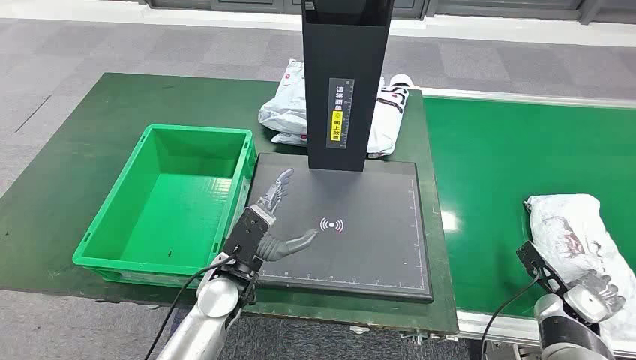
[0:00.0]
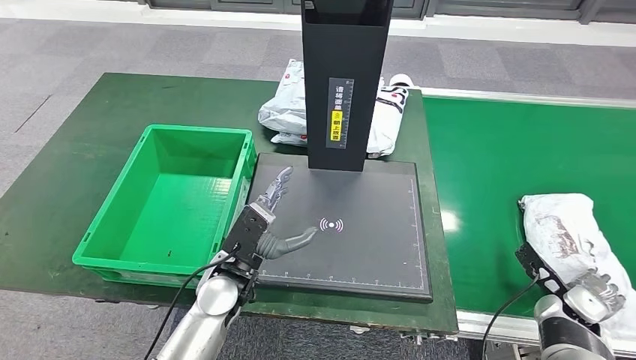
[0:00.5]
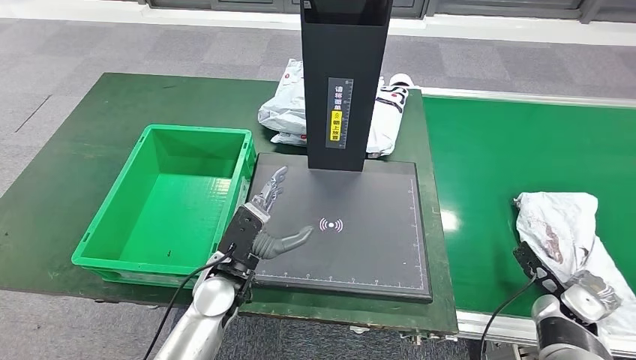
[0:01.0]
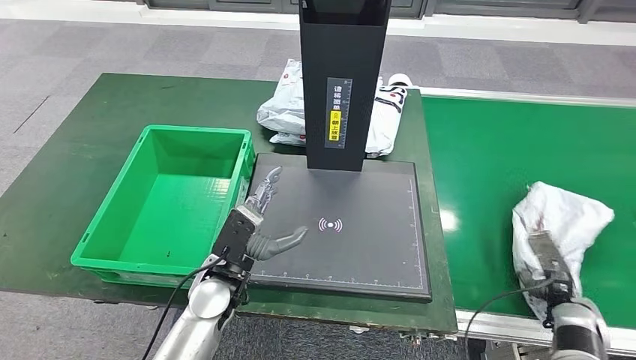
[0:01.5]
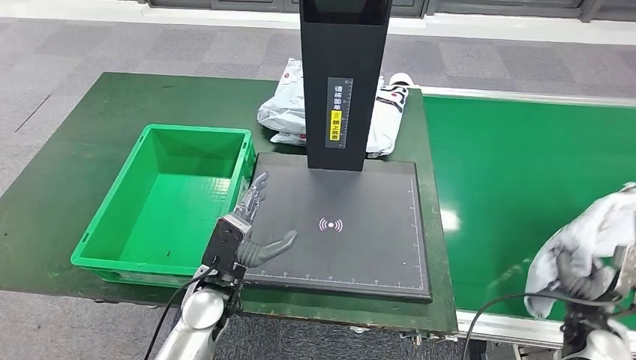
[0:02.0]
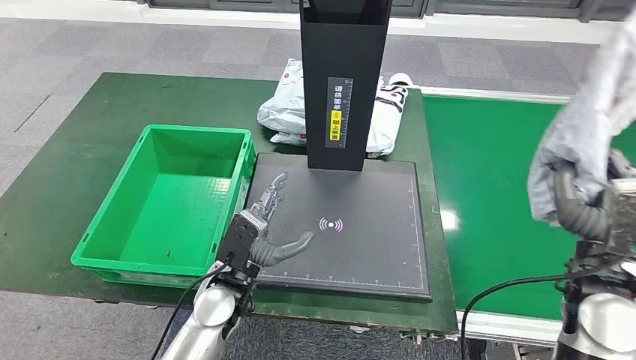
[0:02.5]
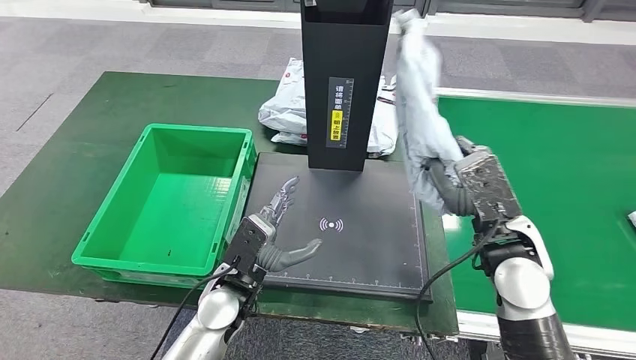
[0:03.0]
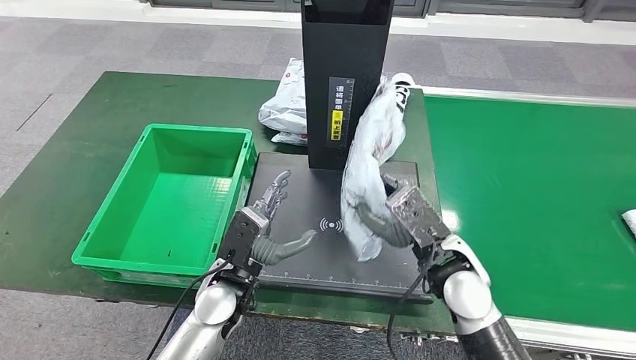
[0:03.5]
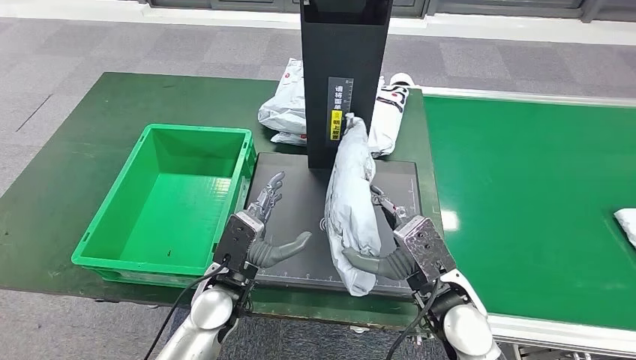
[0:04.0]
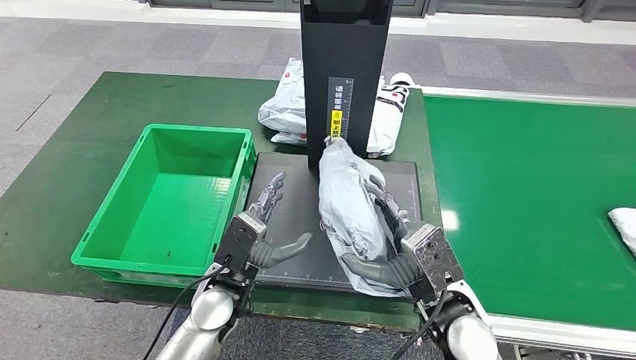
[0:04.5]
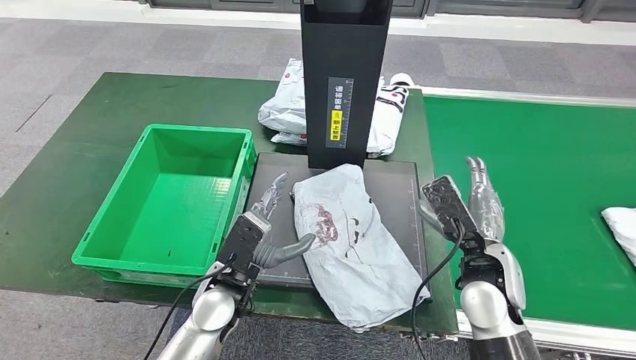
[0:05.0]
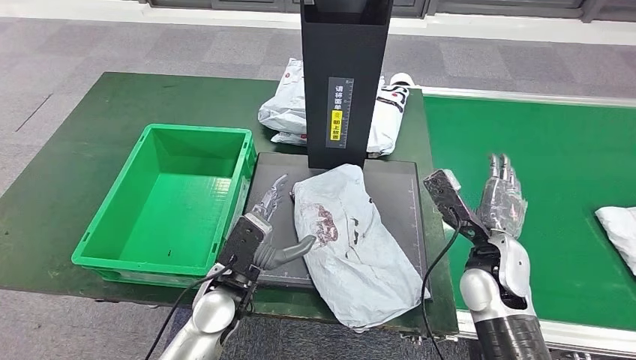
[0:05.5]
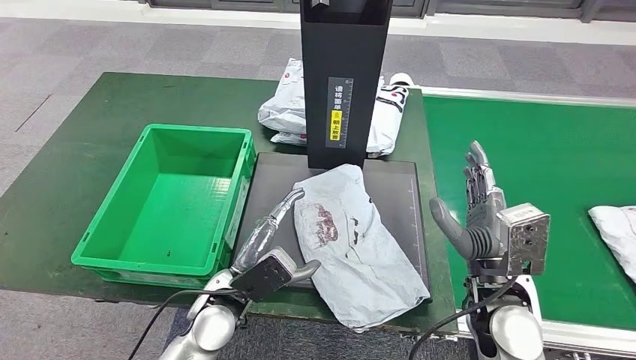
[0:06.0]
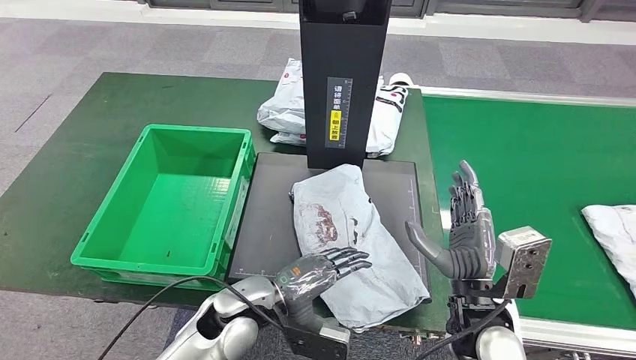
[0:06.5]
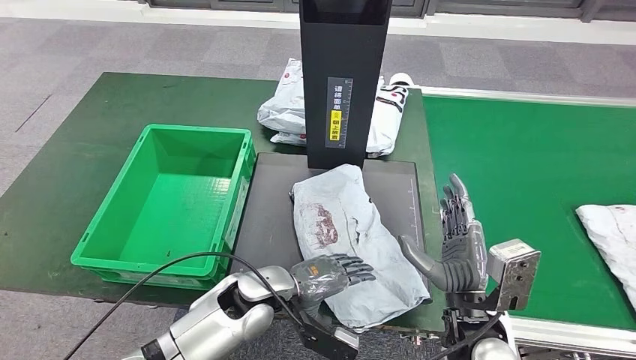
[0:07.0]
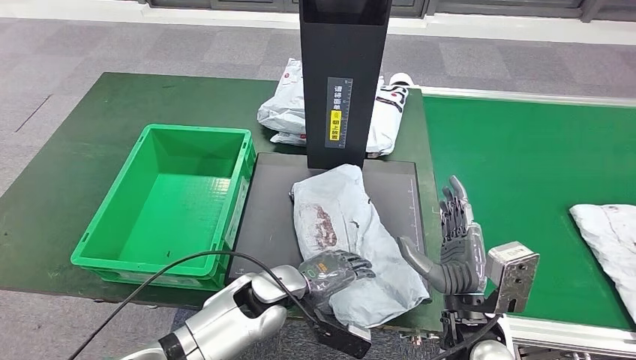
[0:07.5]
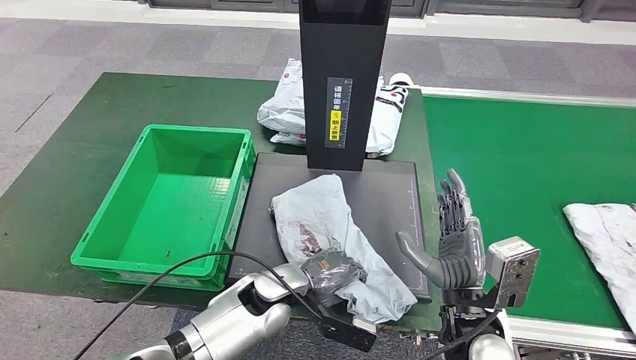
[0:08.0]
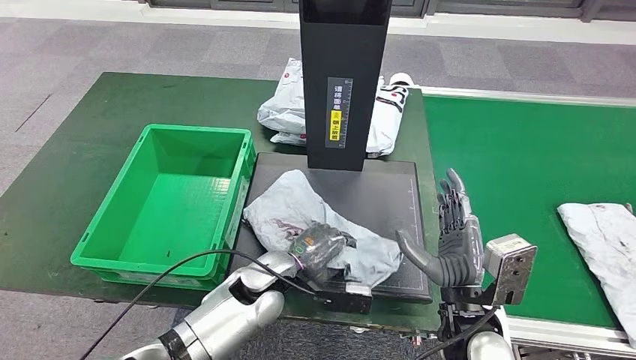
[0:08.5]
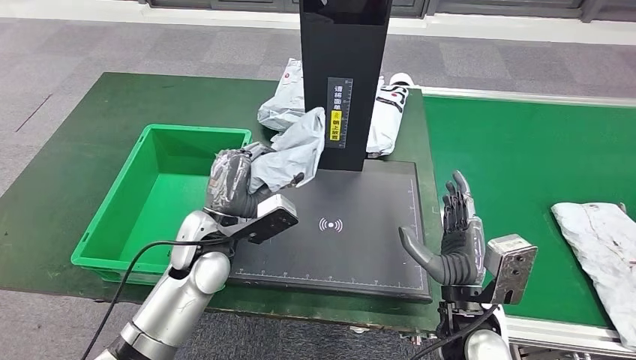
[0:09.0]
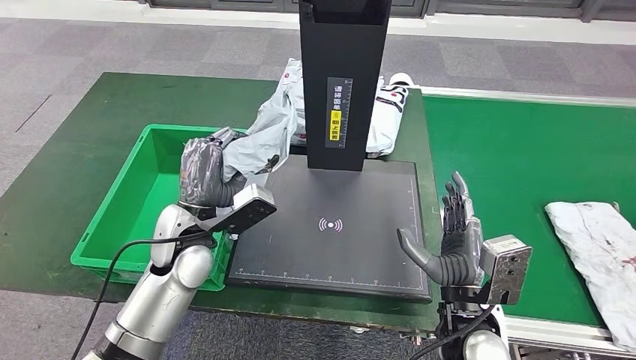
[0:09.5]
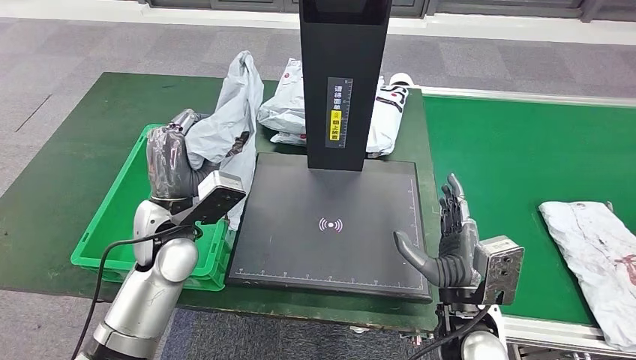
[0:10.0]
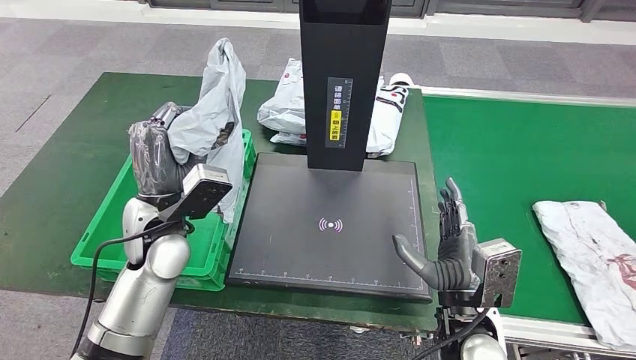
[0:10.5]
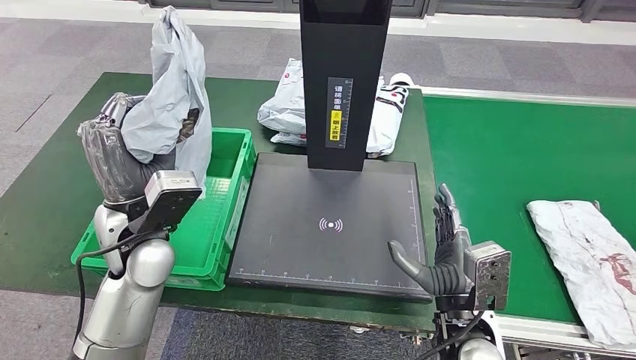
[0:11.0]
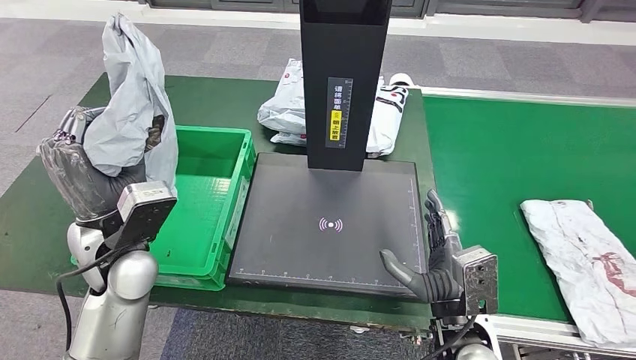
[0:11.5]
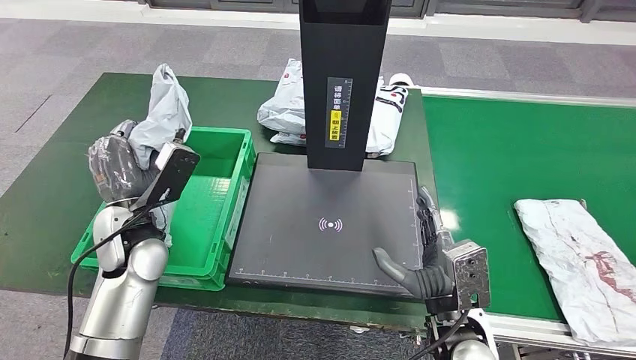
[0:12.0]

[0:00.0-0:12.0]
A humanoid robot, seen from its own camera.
Step, 0:00.0 to 0:02.0: Take the parcel off the conveyor belt.
Step, 0:03.0 to 0:05.0: Place the parcel onto the inbound machine.
Step, 0:05.5 to 0:09.0: Pick up the parcel from the inbound machine.
0:02.0 to 0:04.0: The right hand shifts roughly 25 cm to the left.
0:04.0 to 0:06.0: The right hand goes about 5 cm to the right.
0:06.0 to 0:08.0: The left hand goes some 5 cm to the right. The right hand ends up about 5 cm from where it was.

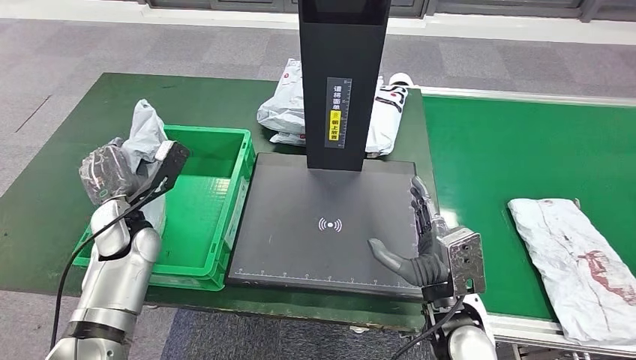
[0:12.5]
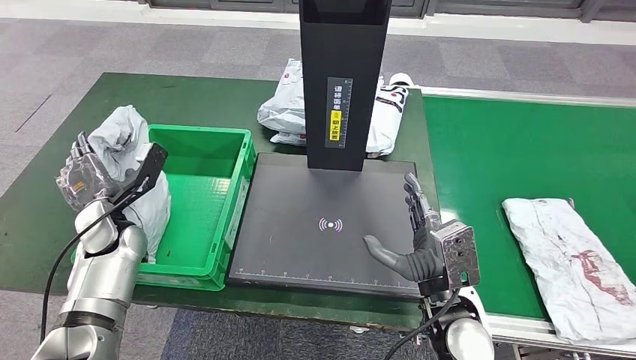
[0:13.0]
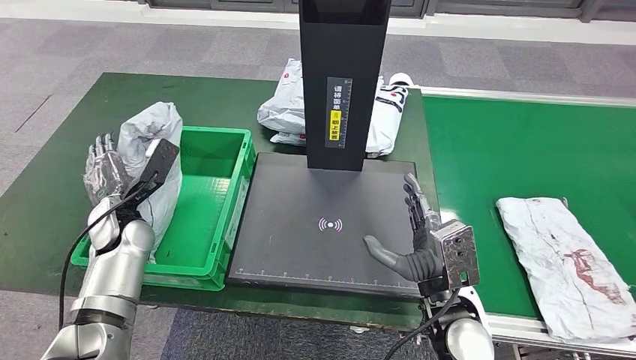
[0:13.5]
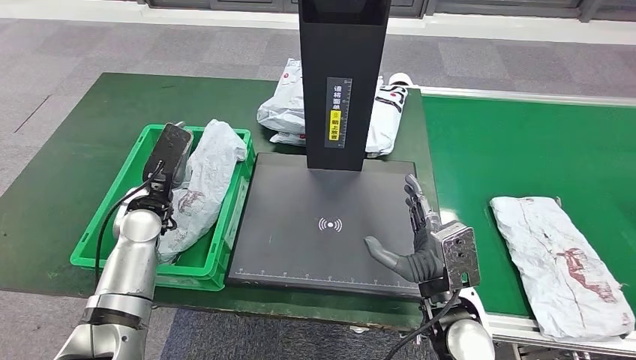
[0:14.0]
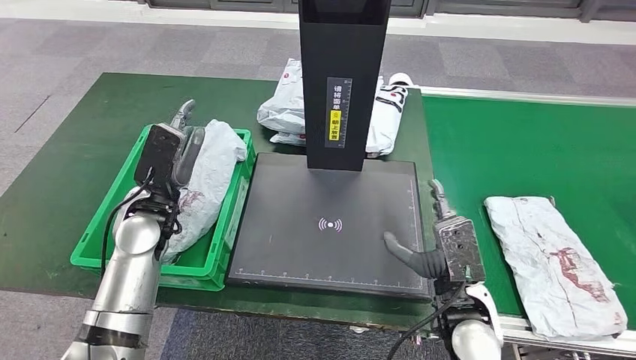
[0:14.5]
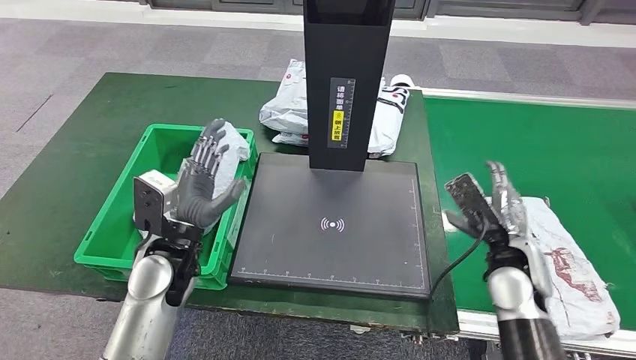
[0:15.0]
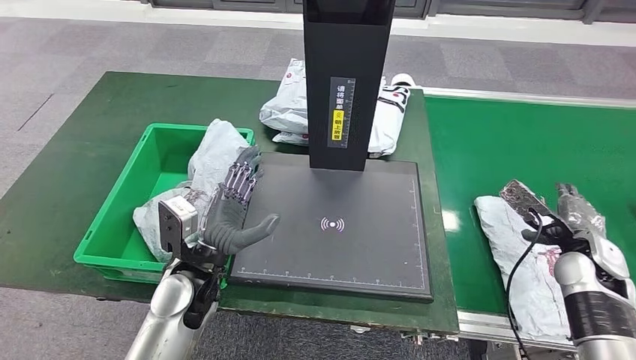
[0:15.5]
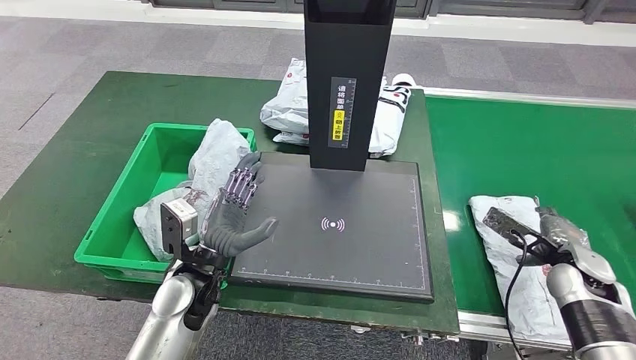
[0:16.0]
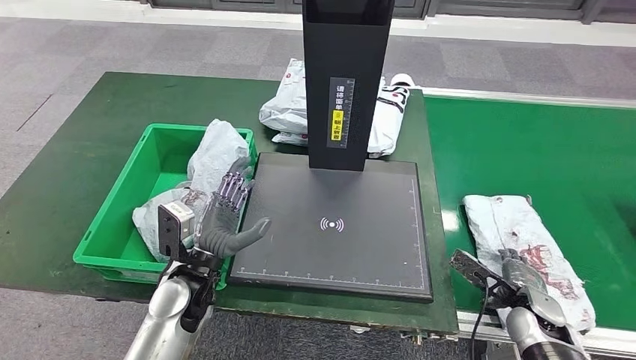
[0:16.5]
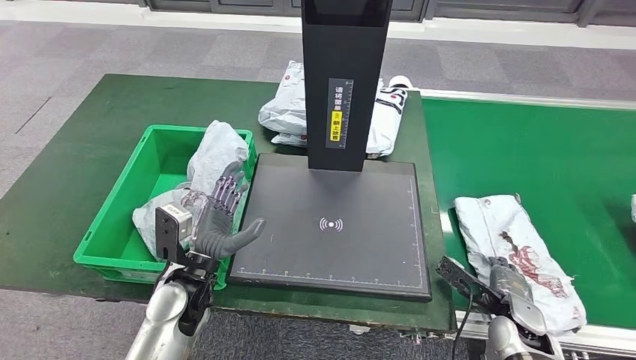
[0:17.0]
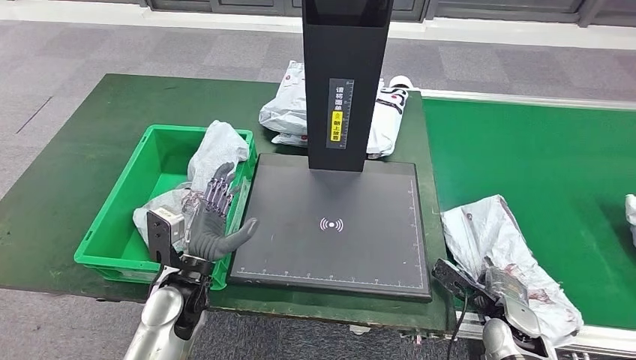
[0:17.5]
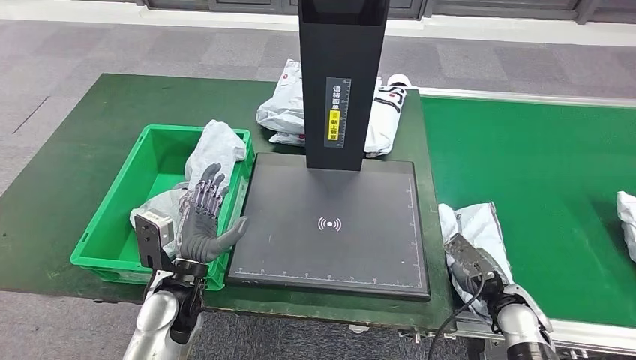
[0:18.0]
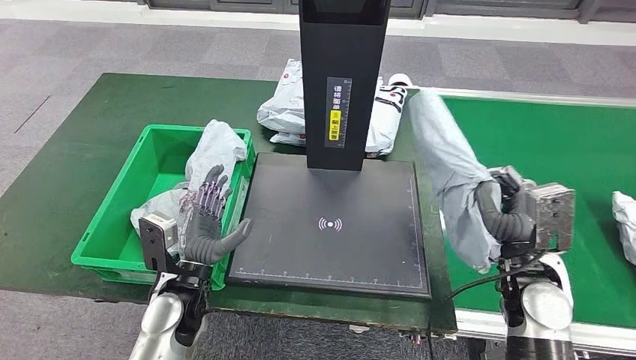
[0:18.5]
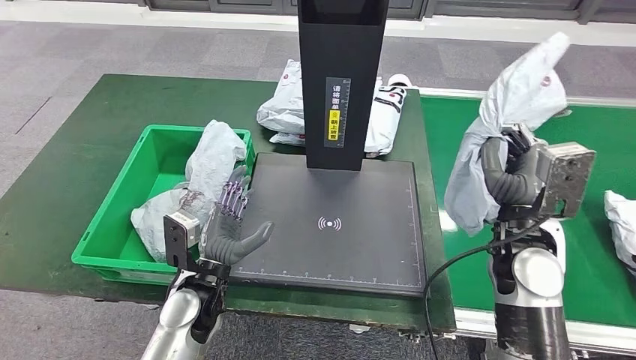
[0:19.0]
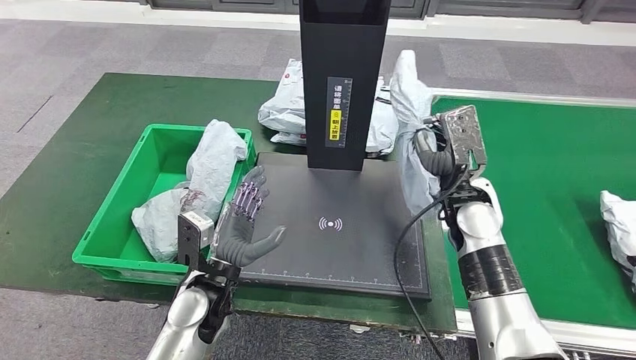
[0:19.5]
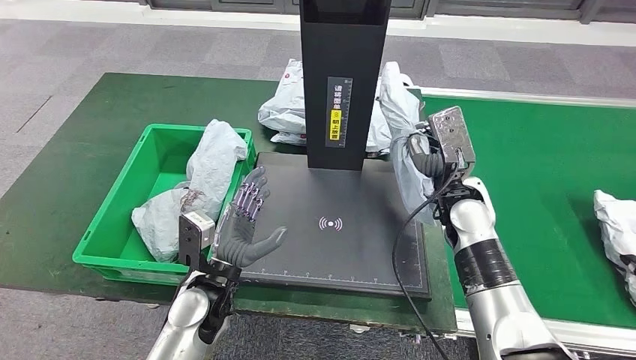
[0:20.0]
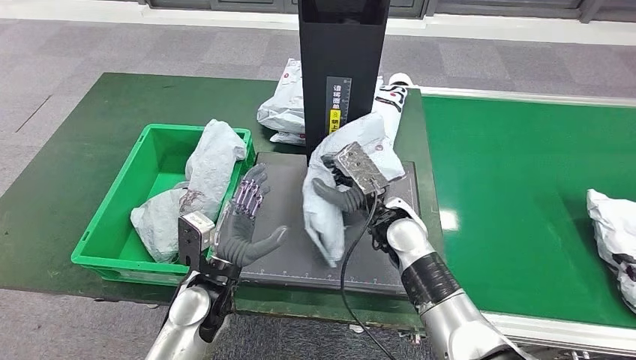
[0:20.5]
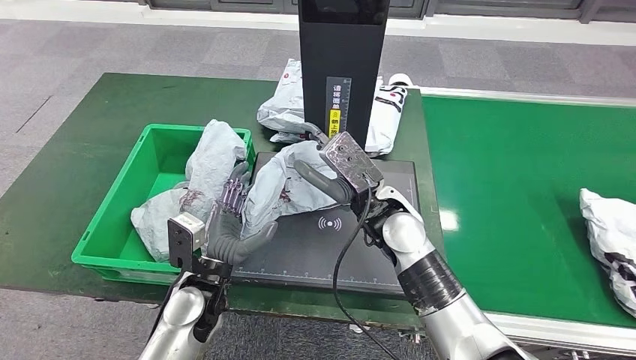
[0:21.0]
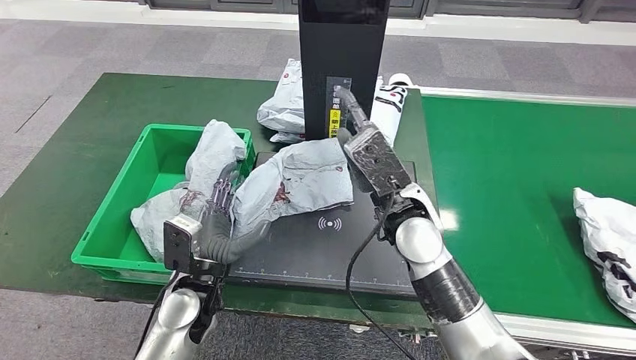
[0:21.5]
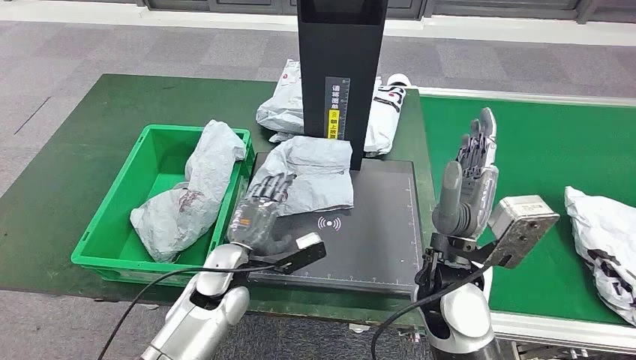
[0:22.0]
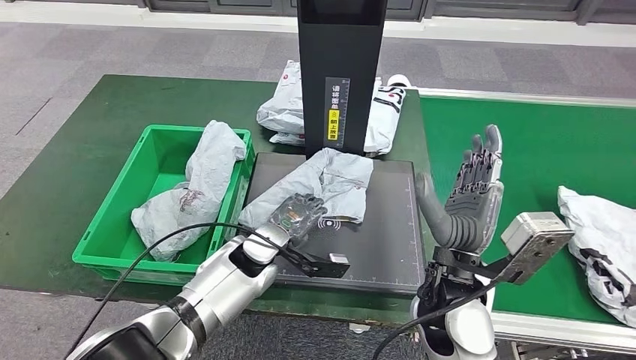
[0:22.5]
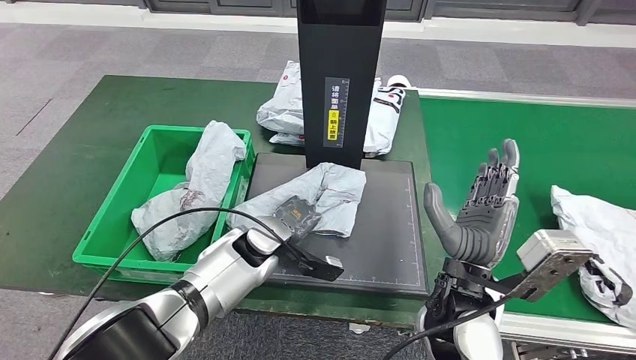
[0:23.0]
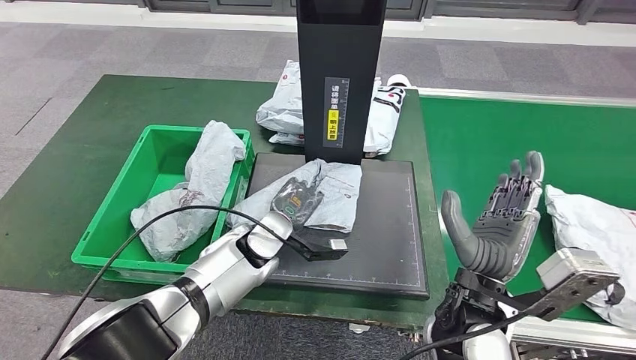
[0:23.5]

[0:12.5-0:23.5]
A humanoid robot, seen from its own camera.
Step, 0:14.5 to 0:18.5: Pick up the parcel from the conveyor belt.
Step, 0:19.0 to 0:21.5: Place the parcel onto the inbound machine.
0:12.5 to 0:14.5: The left hand is displaced to the right by about 5 cm.
